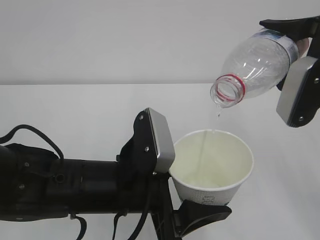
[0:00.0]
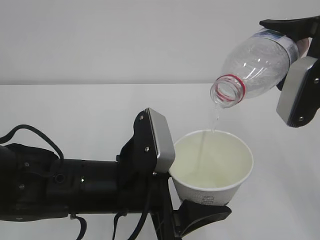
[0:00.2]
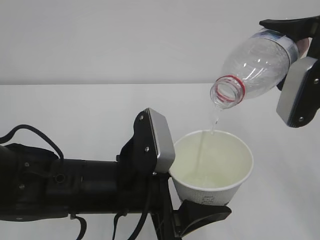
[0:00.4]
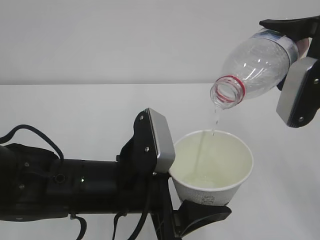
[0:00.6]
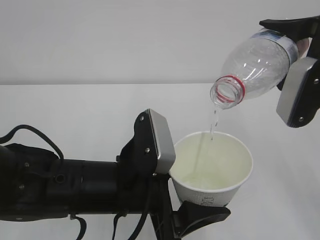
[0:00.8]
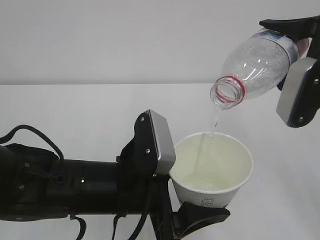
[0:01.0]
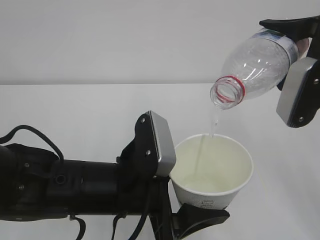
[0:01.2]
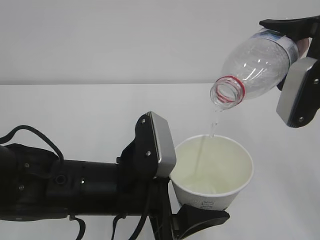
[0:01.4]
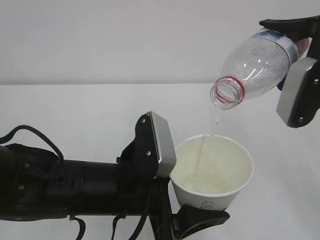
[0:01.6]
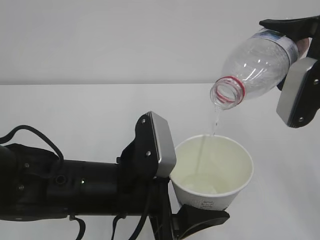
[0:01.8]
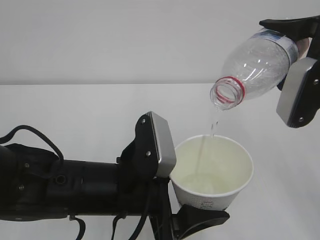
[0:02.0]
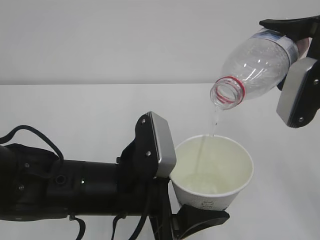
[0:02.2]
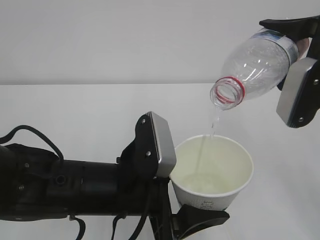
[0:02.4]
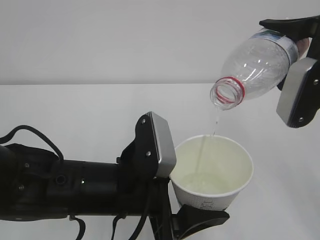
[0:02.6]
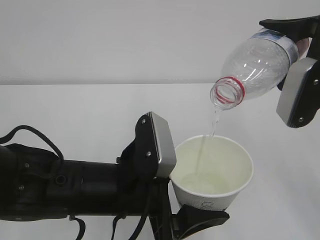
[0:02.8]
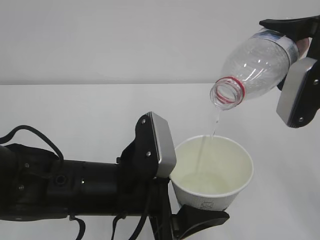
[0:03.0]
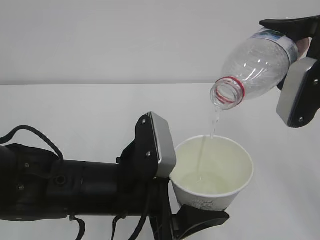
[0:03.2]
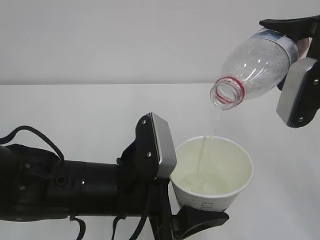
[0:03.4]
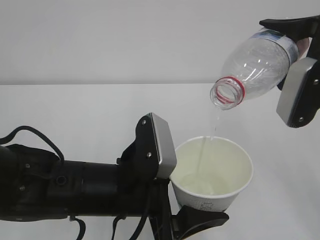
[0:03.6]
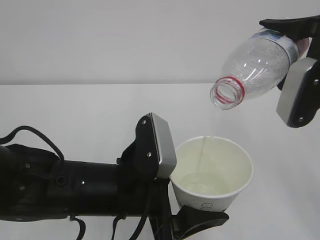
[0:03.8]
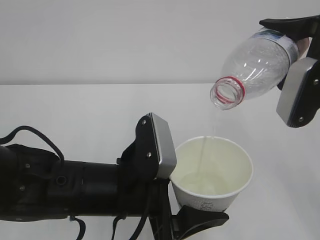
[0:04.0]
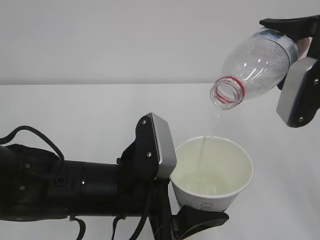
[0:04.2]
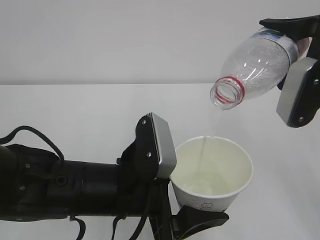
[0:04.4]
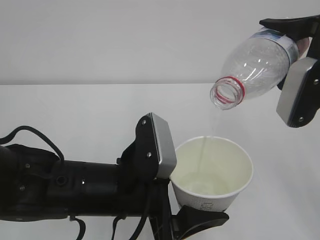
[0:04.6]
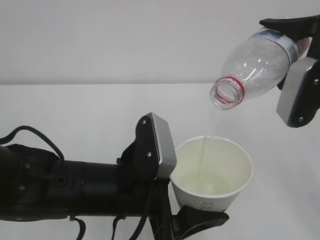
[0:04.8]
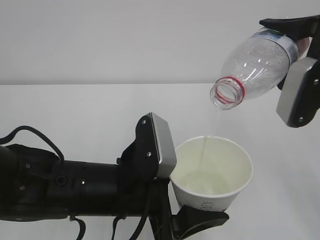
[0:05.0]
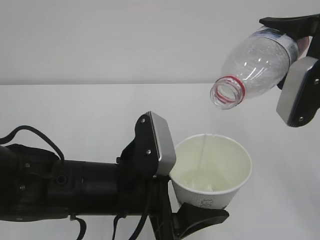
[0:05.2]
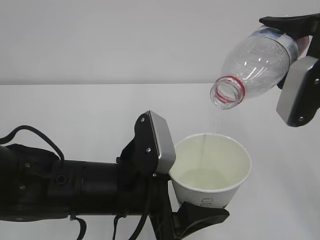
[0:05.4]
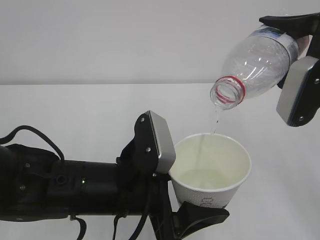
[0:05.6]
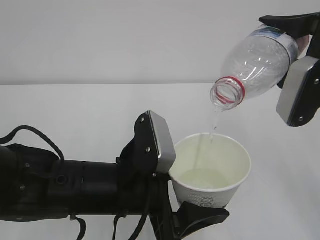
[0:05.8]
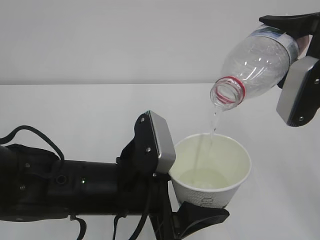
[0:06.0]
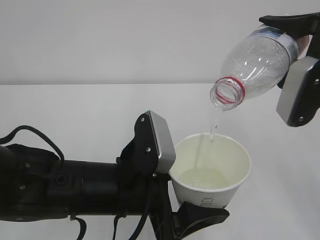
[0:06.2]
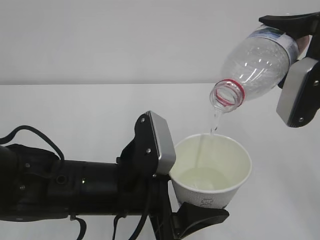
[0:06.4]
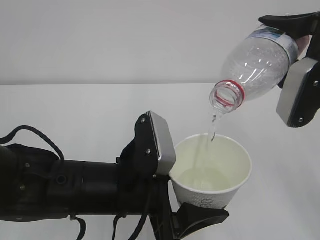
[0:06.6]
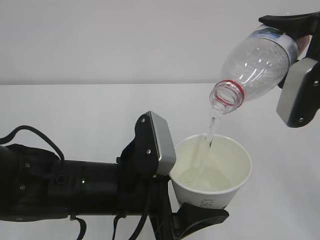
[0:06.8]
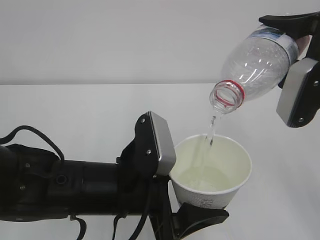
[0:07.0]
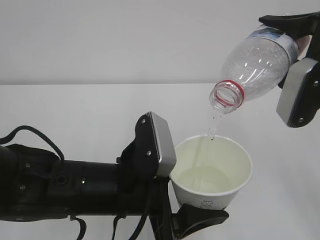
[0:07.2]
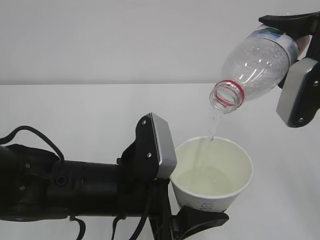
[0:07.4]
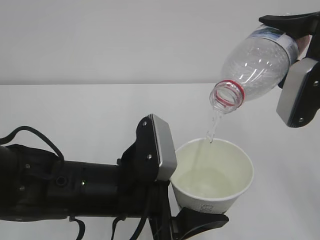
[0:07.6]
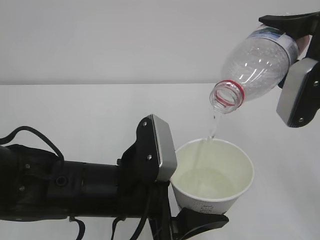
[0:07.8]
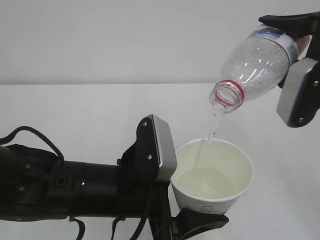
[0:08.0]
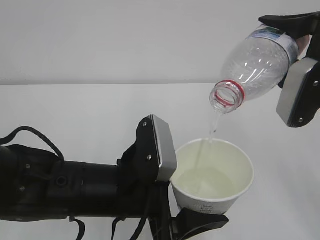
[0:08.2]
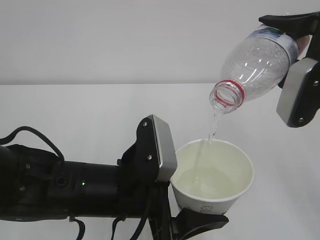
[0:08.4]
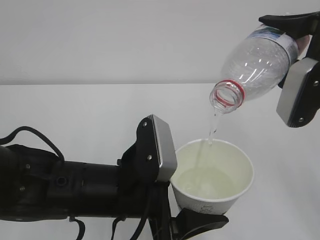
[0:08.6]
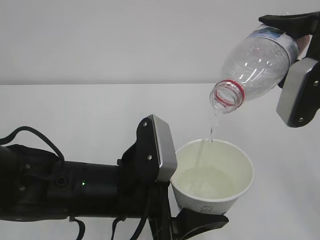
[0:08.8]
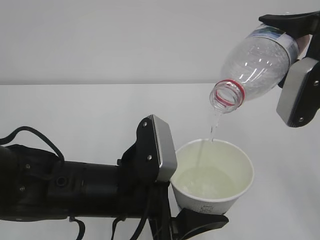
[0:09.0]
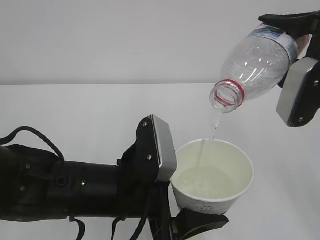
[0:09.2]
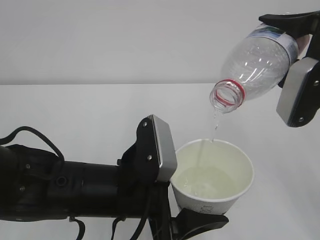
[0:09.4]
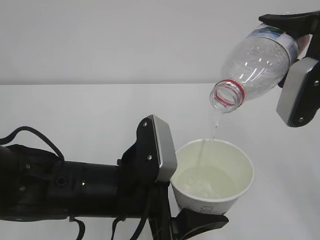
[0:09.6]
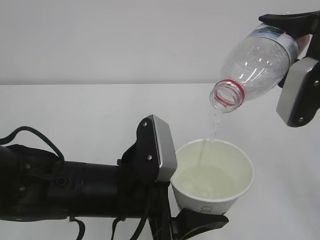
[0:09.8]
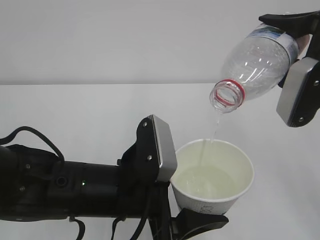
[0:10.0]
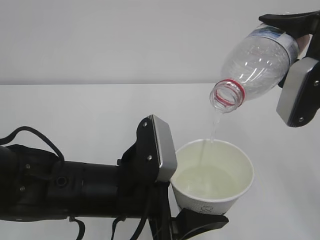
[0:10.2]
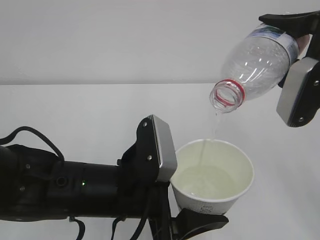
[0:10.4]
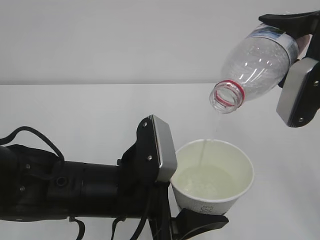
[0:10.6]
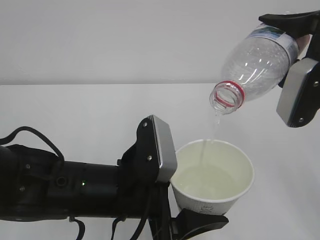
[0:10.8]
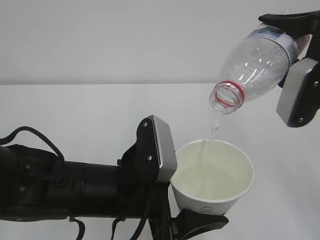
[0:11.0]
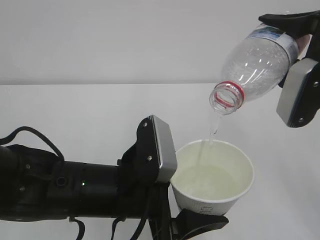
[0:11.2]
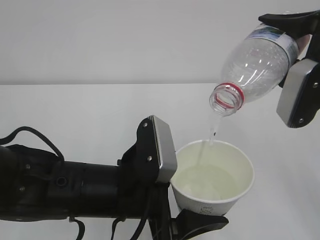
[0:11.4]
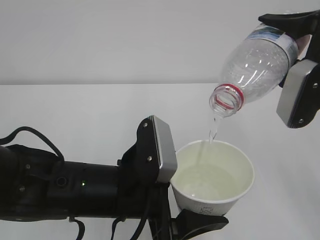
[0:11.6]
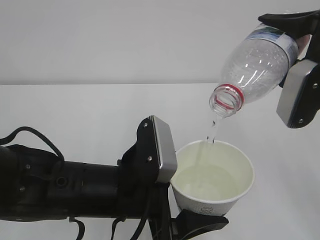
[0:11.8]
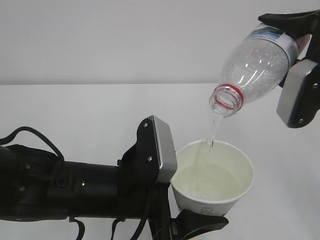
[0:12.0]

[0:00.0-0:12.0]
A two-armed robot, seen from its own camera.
0:00.0 to 0:10.4: Both grippers stay put.
0:10.4 to 0:12.0: Both grippers stay put.

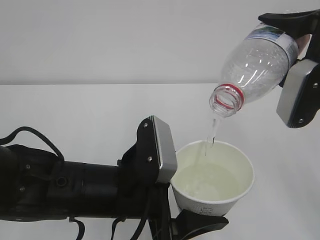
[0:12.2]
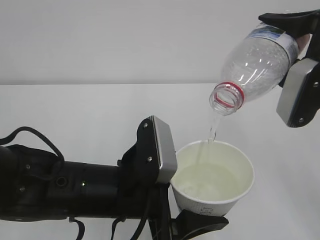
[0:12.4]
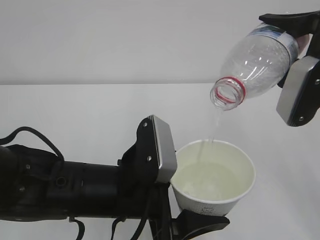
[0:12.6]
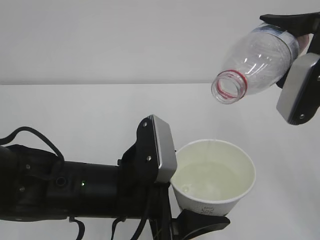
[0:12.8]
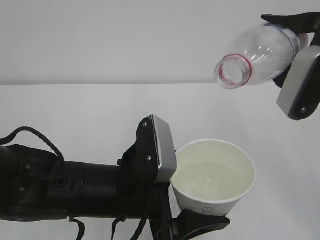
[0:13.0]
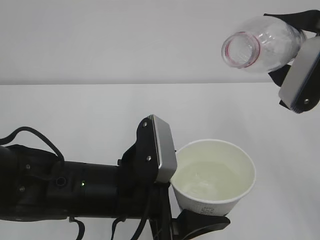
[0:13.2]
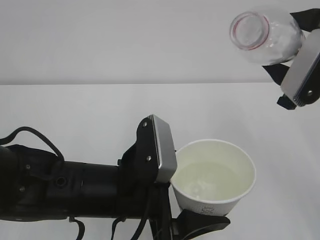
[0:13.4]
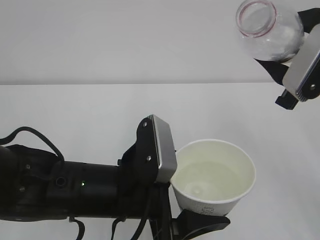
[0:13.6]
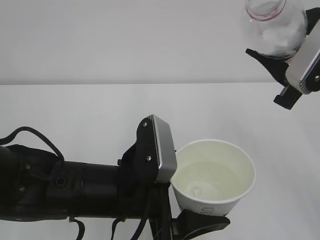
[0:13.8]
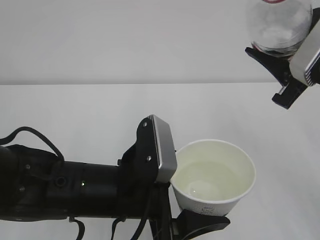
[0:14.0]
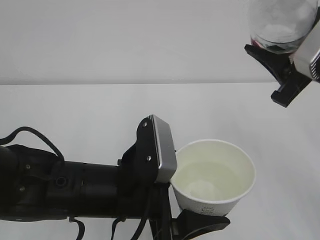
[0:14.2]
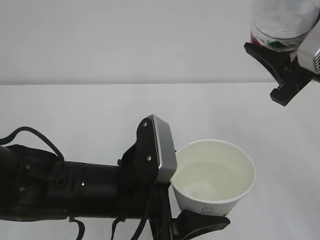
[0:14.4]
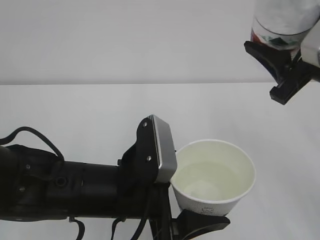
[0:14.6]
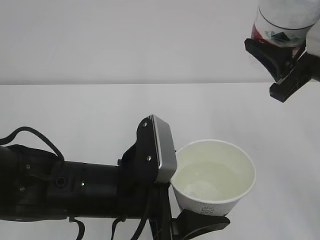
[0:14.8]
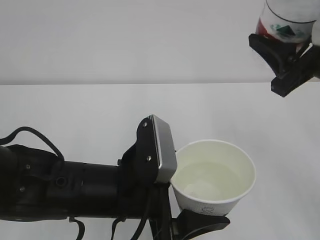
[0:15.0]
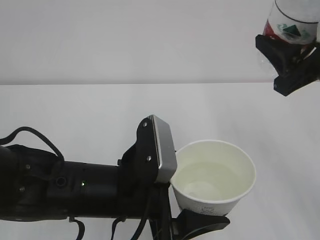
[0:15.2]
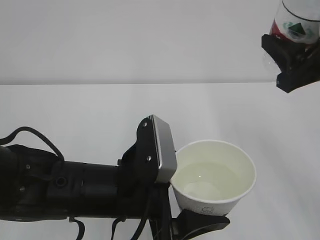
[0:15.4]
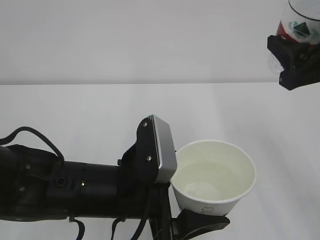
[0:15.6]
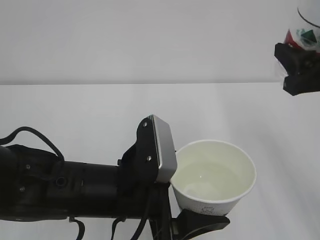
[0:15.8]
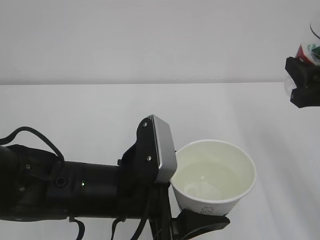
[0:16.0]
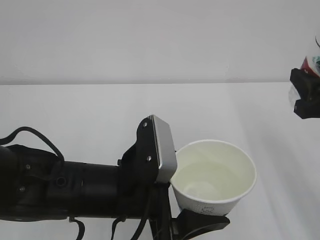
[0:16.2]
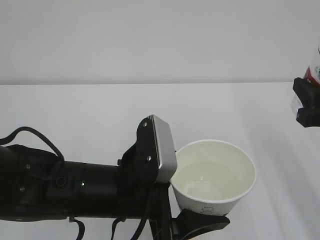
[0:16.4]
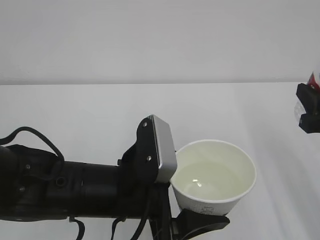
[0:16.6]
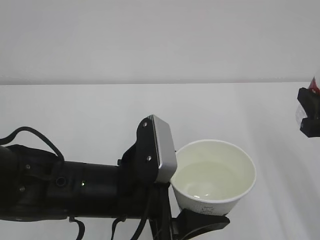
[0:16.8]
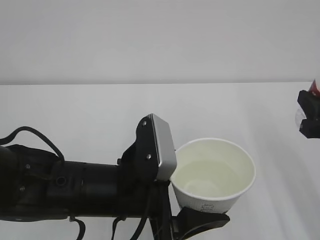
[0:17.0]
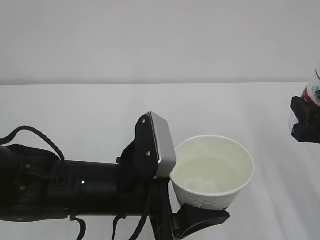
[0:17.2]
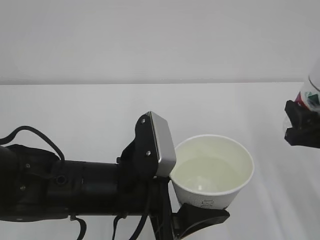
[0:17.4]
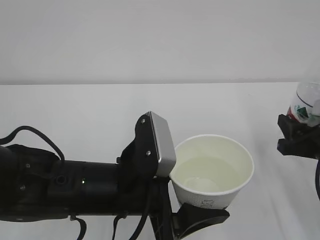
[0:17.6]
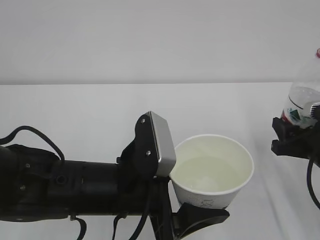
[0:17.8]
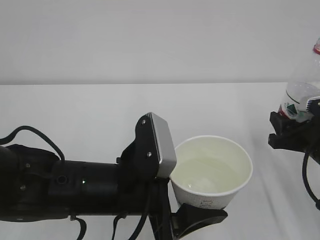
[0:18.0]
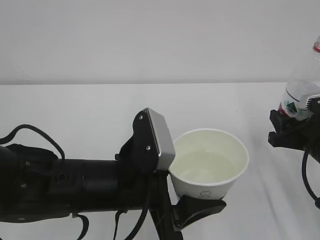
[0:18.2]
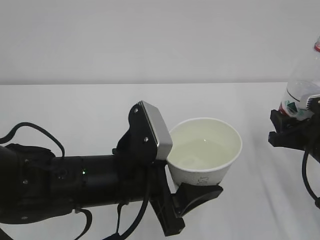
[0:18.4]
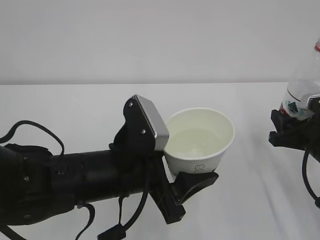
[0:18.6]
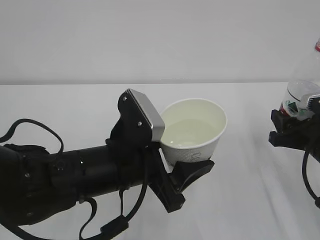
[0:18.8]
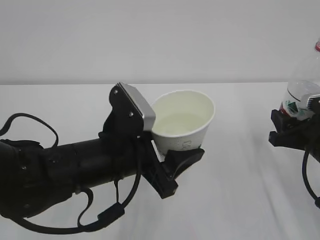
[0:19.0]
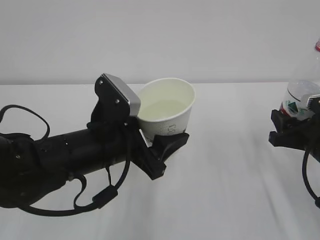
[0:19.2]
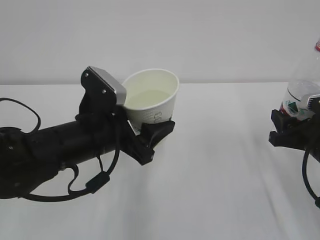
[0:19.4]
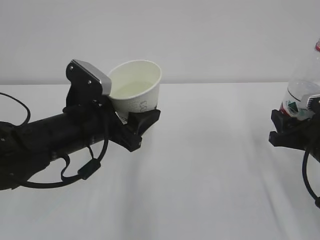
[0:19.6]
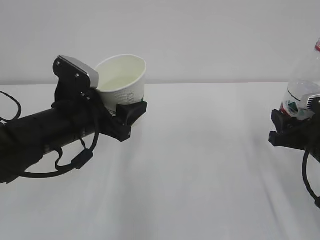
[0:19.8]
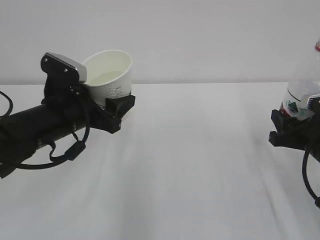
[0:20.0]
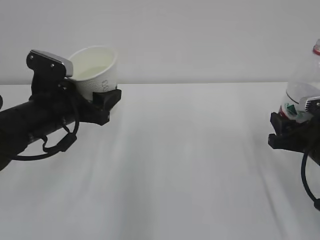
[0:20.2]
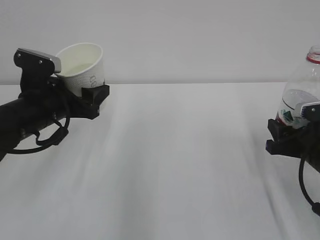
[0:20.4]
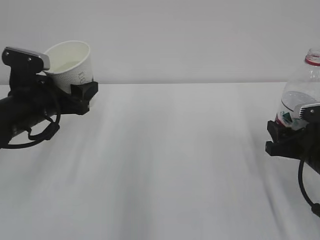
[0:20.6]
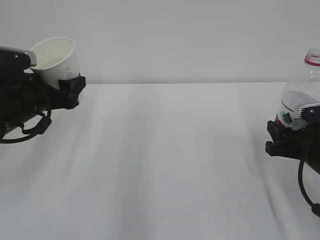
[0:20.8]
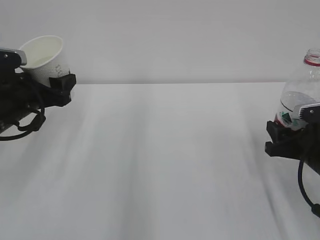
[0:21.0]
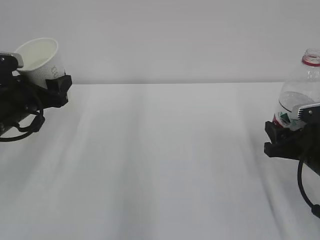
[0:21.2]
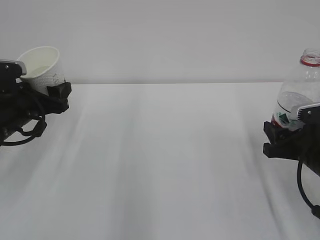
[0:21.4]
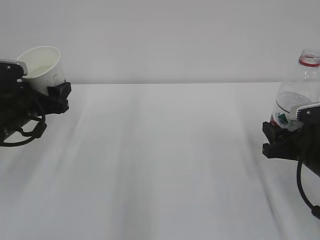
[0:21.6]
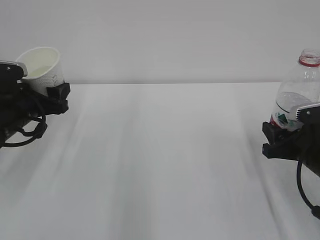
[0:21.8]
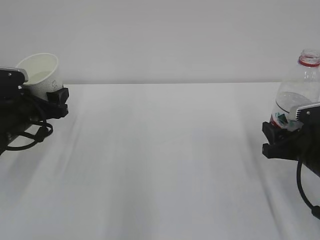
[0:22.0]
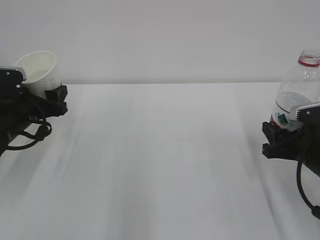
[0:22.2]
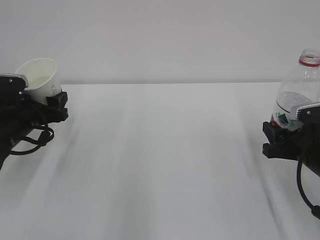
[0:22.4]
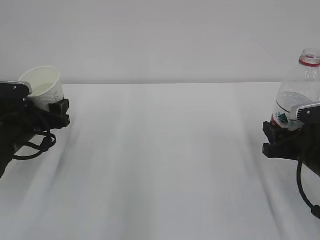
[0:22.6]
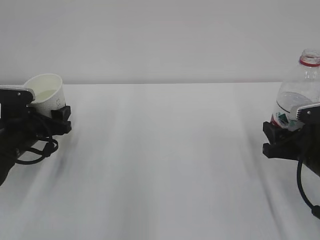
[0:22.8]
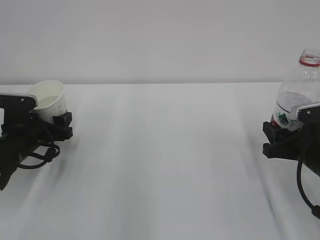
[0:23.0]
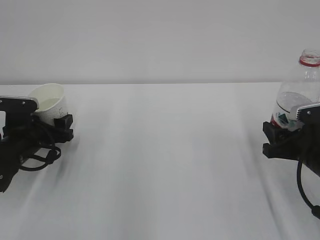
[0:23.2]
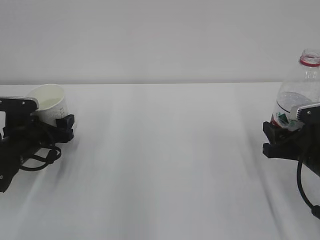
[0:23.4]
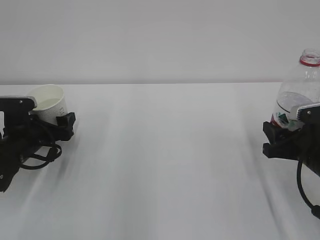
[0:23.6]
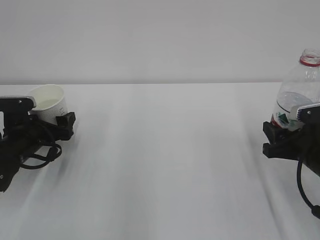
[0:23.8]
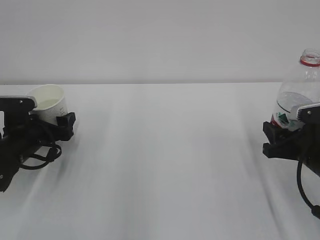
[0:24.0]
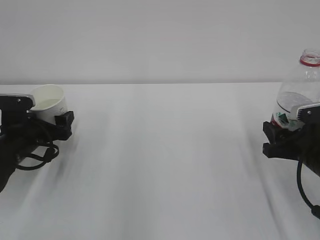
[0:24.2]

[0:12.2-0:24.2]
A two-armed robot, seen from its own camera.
0:15.2 to 0:16.6: The right gripper goes approximately 5 cm downward.
0:16.6 to 0:18.2: The right gripper moves downward, approximately 10 cm.
0:18.2 to 0:19.8: The left gripper moves forward and to the left, roughly 15 cm.
0:19.8 to 0:21.2: The left gripper moves to the left and forward, roughly 15 cm.
0:21.2 to 0:22.6: The left gripper travels downward by some 5 cm.
0:22.6 to 0:24.2: The left gripper opens.
